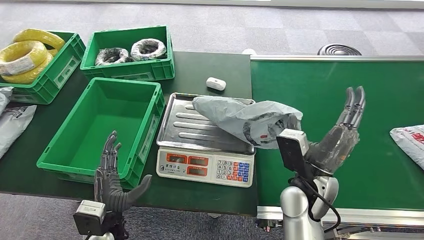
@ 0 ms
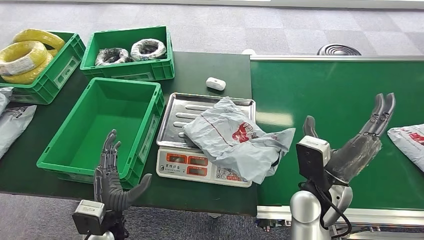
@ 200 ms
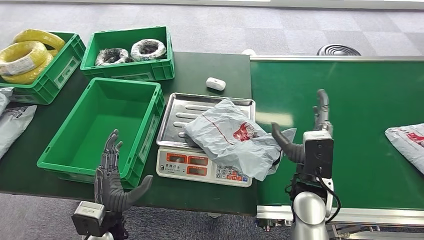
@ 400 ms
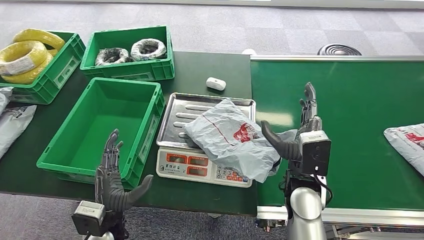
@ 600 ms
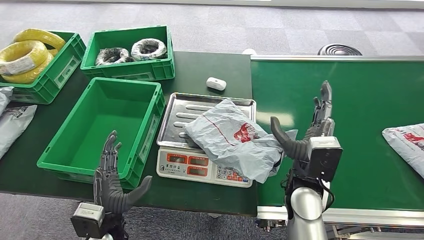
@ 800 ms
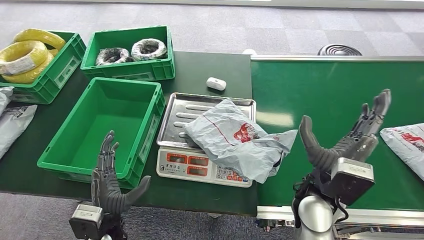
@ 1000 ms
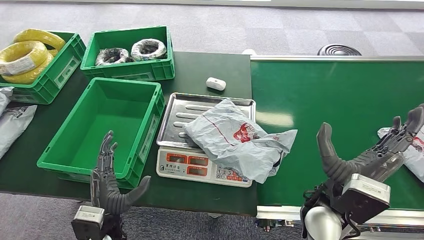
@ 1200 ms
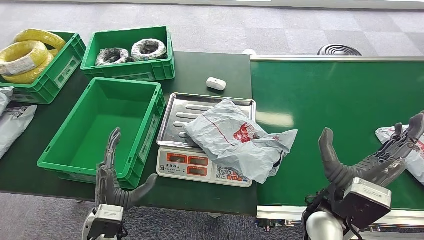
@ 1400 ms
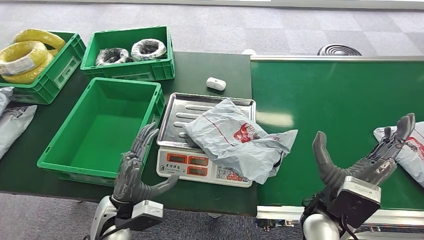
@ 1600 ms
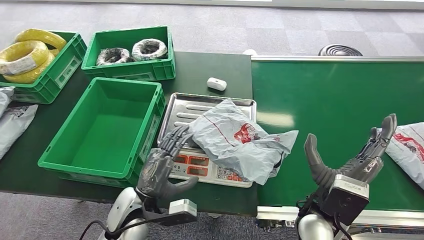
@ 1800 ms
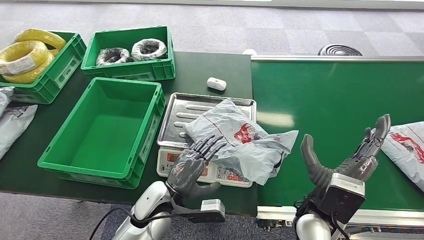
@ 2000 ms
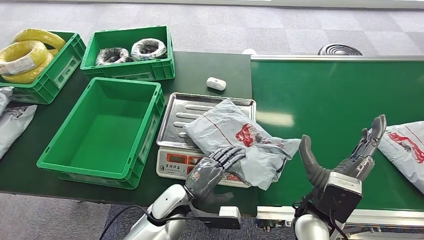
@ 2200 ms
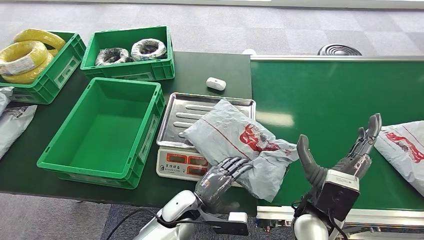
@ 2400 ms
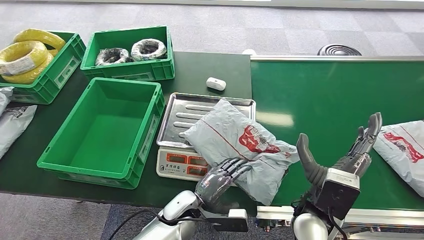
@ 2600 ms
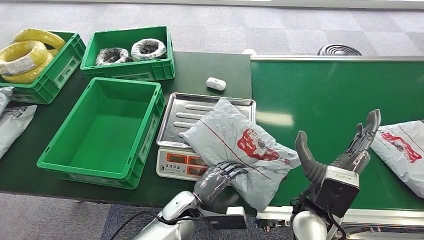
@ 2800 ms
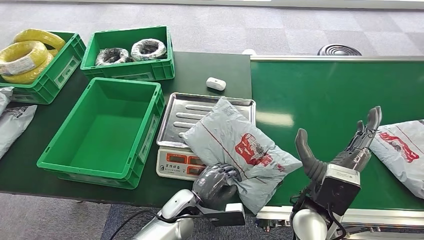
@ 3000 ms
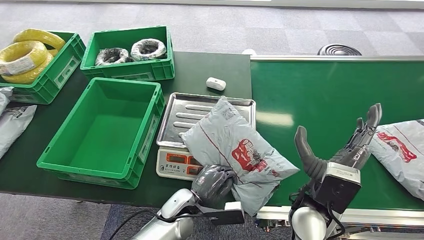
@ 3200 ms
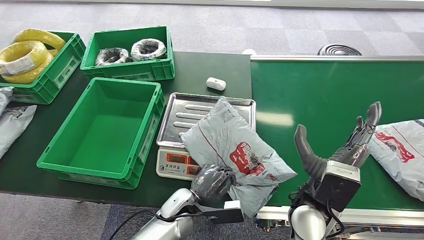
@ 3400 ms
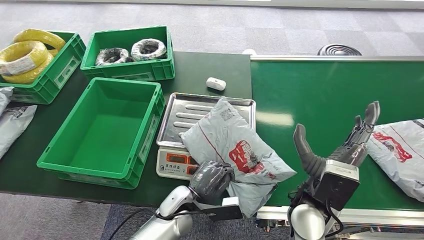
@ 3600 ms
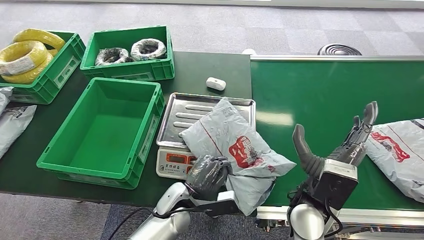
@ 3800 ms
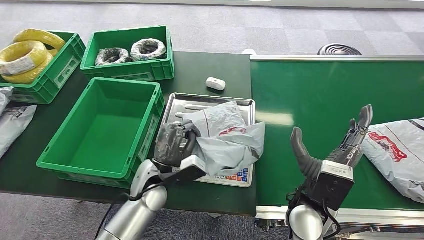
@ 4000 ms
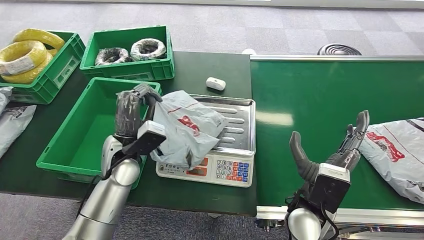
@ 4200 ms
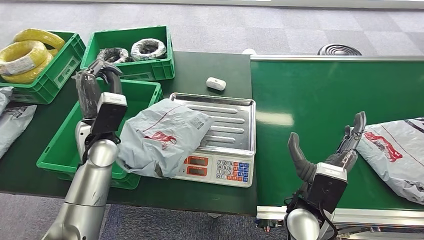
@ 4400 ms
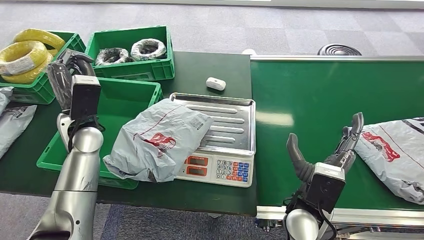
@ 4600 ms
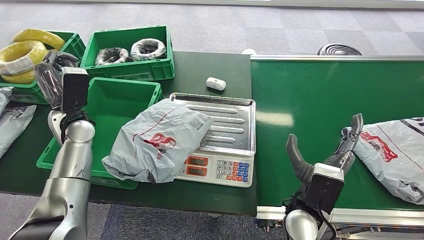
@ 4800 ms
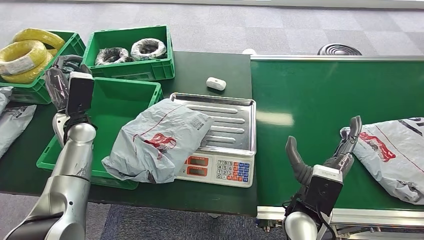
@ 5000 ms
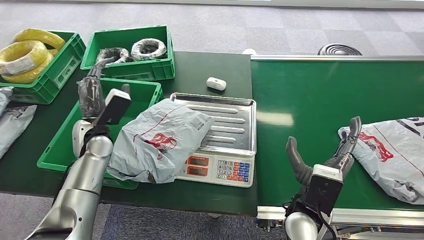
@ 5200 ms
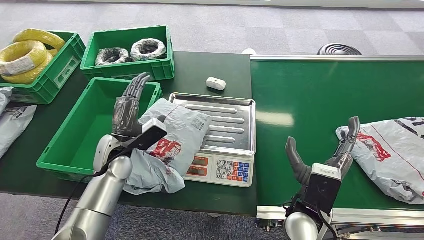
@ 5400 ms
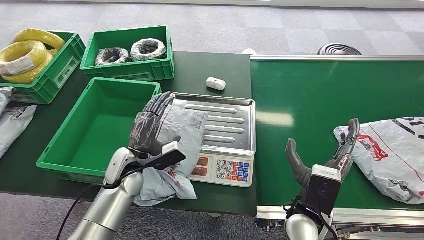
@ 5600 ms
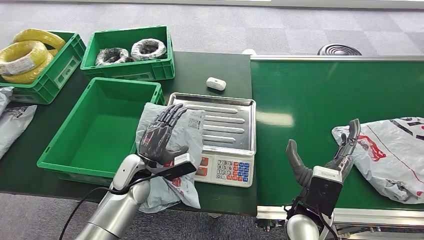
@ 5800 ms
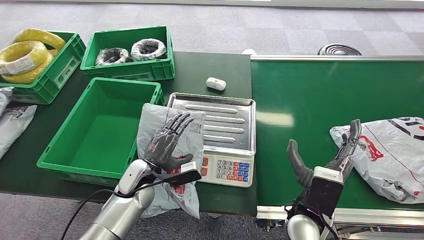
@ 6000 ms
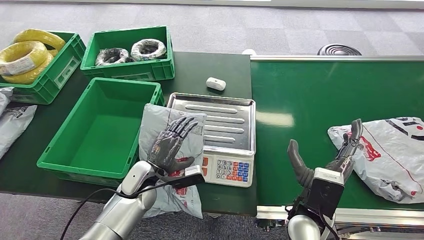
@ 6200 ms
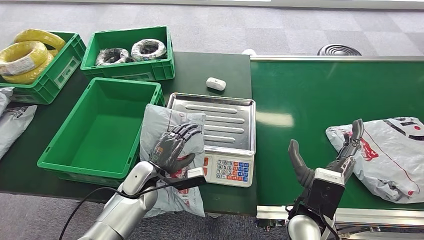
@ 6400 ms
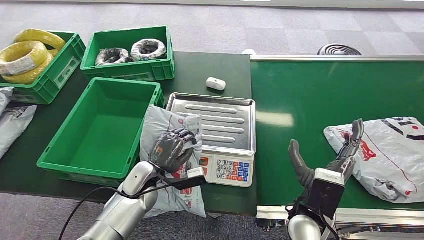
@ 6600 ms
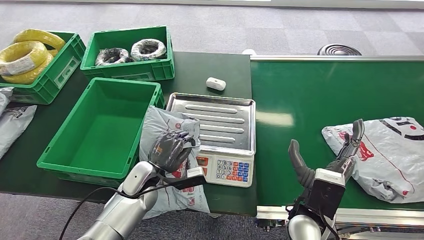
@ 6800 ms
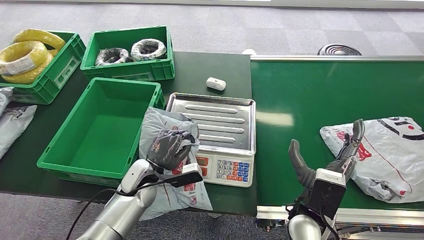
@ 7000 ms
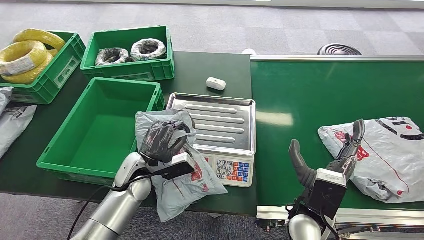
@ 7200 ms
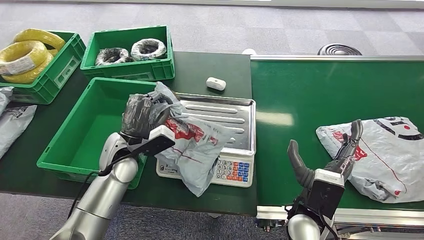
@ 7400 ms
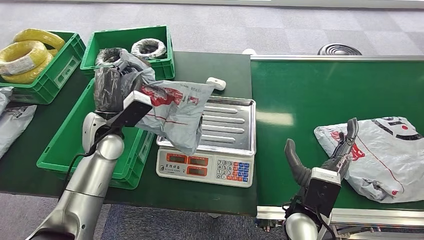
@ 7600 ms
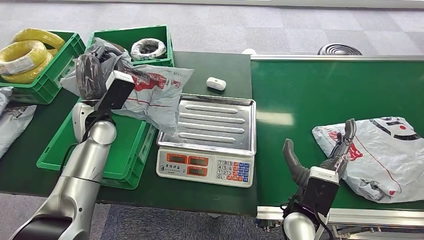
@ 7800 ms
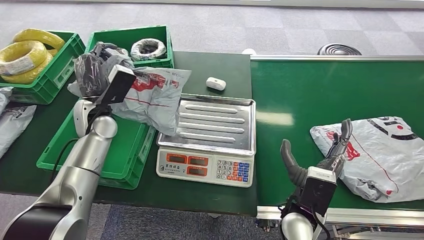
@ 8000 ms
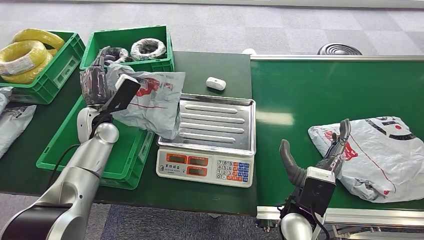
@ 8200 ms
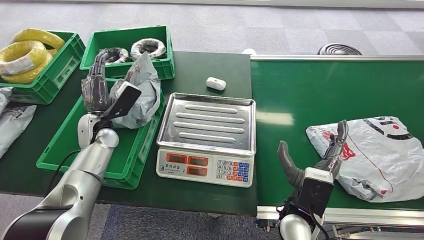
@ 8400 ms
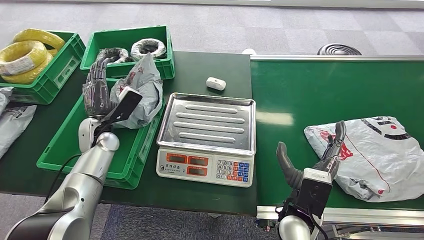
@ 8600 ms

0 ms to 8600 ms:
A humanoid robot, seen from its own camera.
Step, 1000 ms to 7800 ms: Pick up the package from the inbound machine.
Step, 8000 ms to 8600 ms: Place the package into the parcel locker.
0 ms to 1400 ms: The right hand changes place by about 5 cm.
1400 ms to 2800 ms: The left hand heads to the right, covering about 15 cm.
4400 ms to 5800 ms: The left hand heads downward and to the right, covering some 15 cm.
5800 ms to 7200 ms: The hands stay close to where they were, moving slightly.
